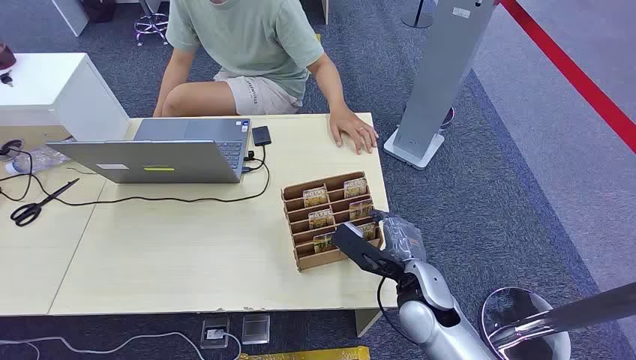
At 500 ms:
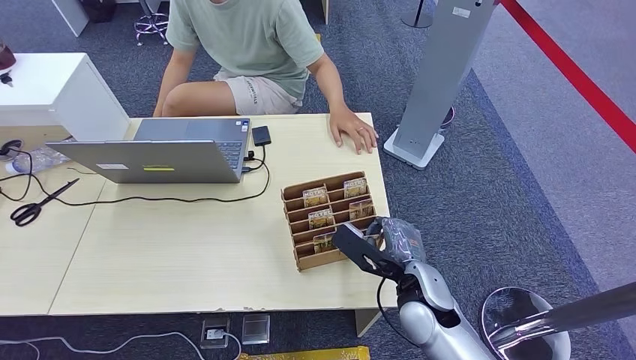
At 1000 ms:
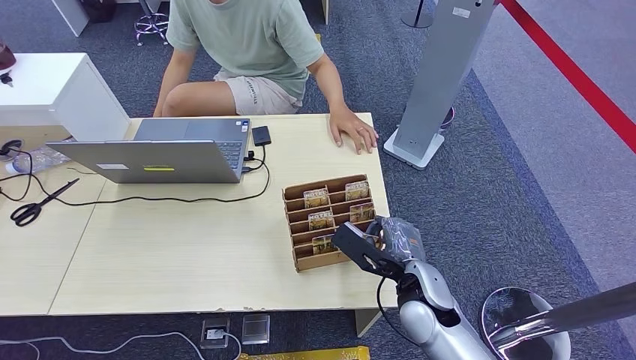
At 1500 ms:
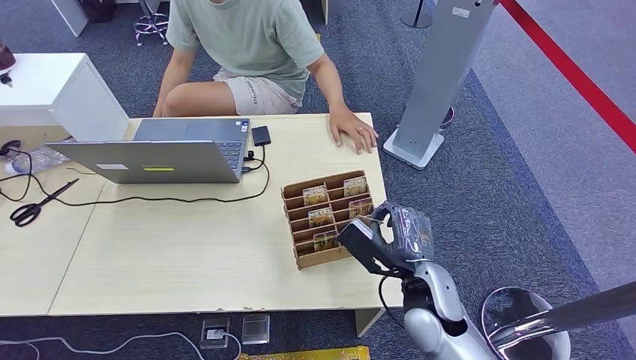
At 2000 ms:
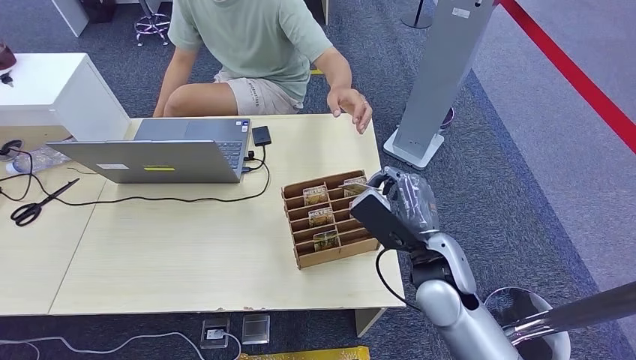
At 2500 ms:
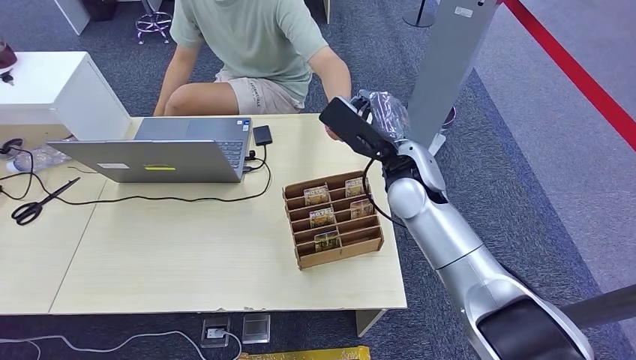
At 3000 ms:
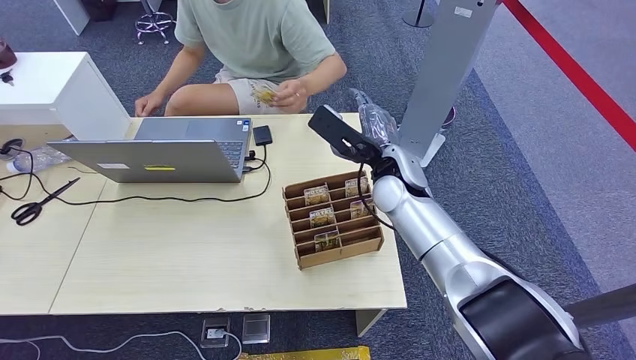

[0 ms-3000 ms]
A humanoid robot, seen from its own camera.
Step, 0 ms to 1500 ms: Pick up the room card from the card holder.
Step, 2500 ms to 3000 ms: Hand the room card to the target.
1500 ms to 3000 ms: The right hand goes approximately 20 cm forward and upward.

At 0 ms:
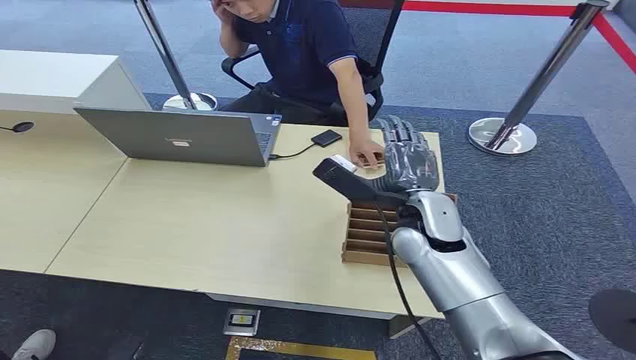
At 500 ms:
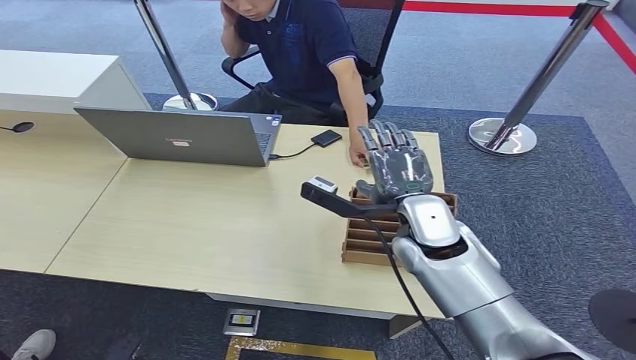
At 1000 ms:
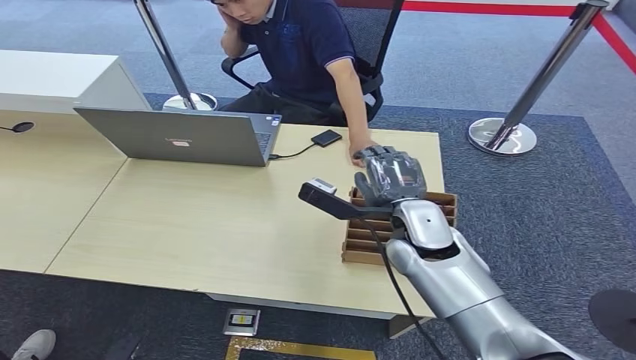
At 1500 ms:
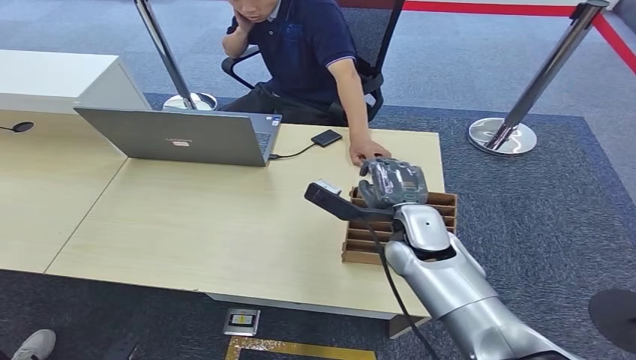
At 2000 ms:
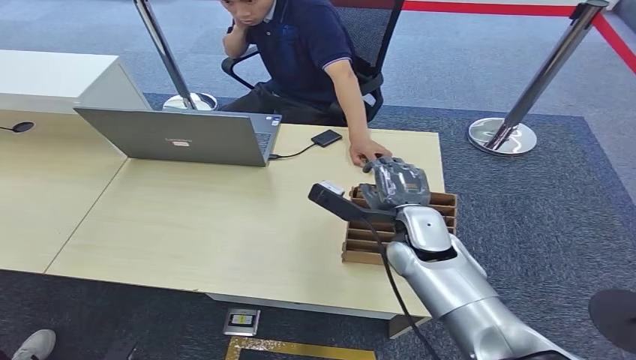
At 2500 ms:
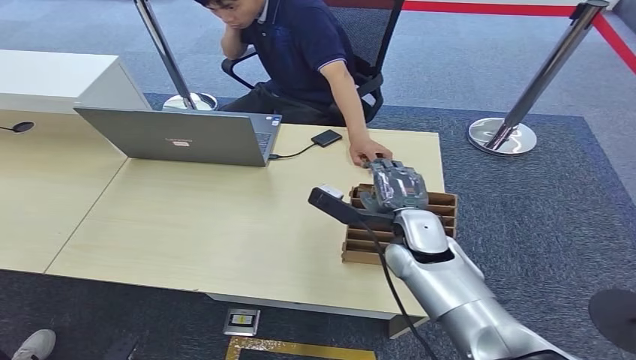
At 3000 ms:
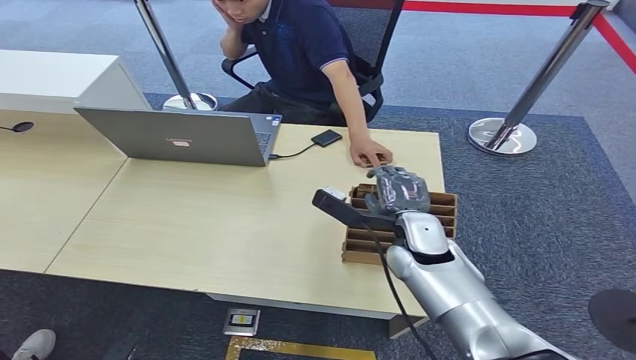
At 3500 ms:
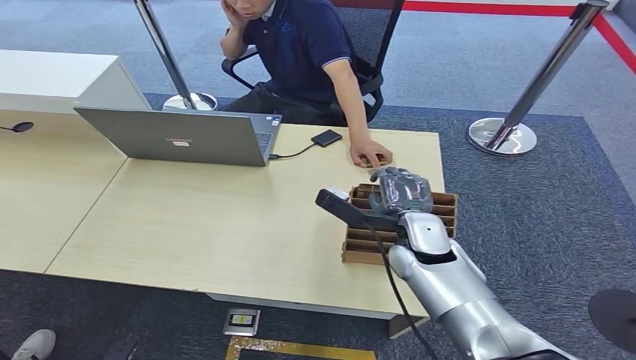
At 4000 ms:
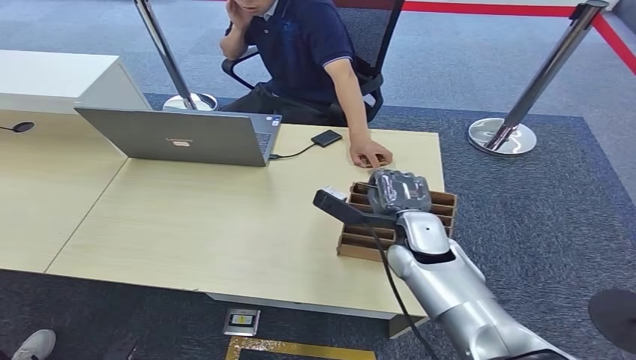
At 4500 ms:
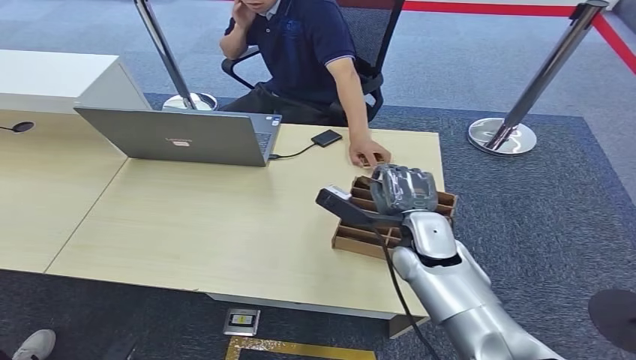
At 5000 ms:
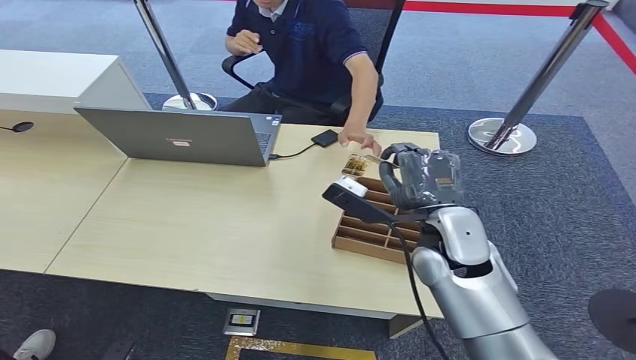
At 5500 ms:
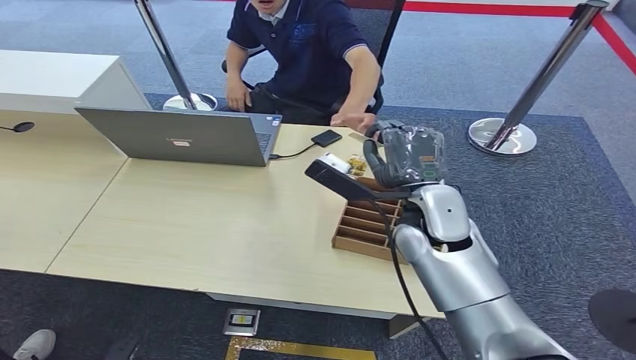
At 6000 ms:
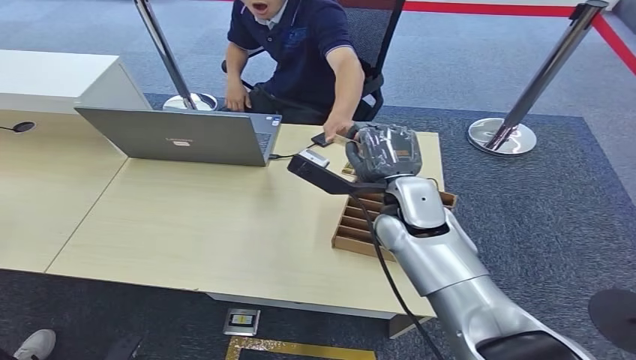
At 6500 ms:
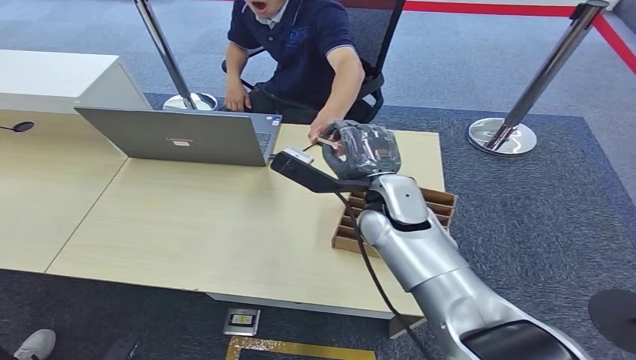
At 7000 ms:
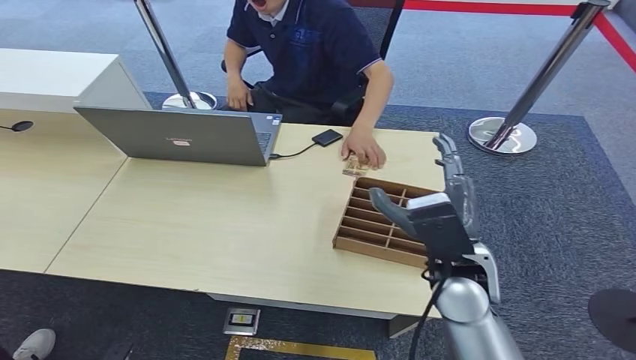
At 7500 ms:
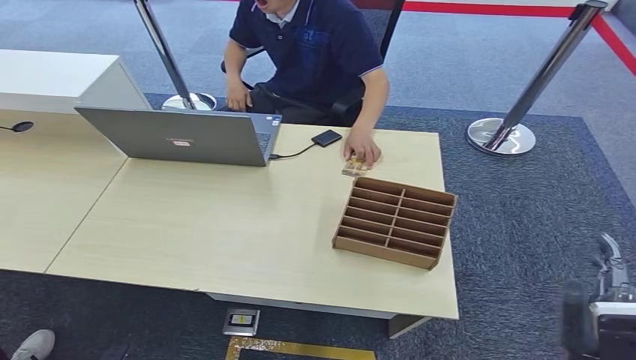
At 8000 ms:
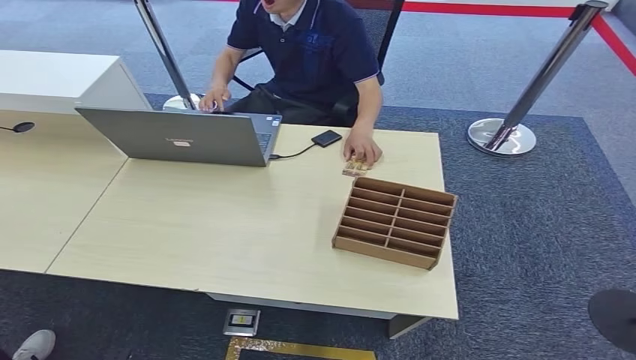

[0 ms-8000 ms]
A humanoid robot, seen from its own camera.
Step, 0 ms to 4500 ms: Pick up the room card from the card holder.
Step, 5000 ms to 8000 ms: Hand the room card to the target.
2000 ms to 4000 ms: There are only small adjustments of the hands.
4000 ms to 6000 ms: The right hand goes roughly 10 cm upward.
6000 ms to 8000 ms: The right hand shifts approximately 50 cm backward, downward and to the right.
